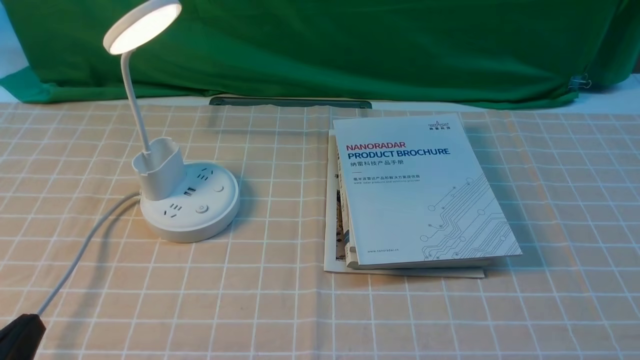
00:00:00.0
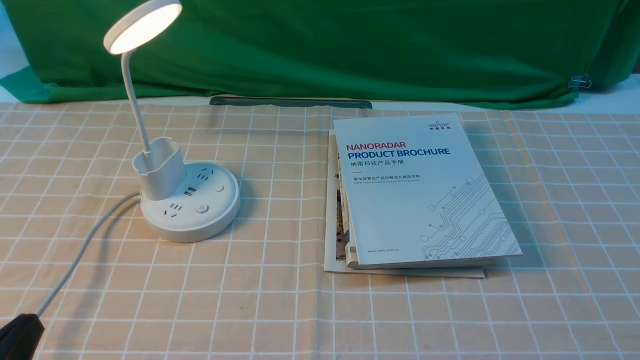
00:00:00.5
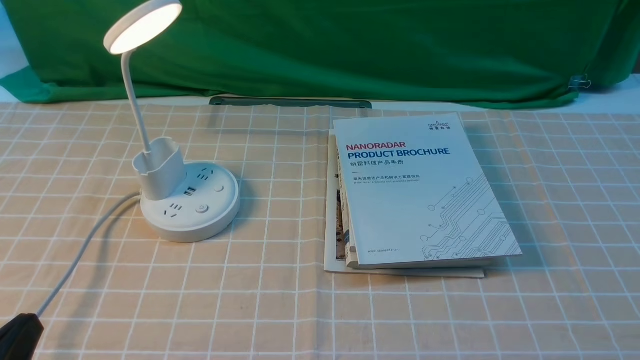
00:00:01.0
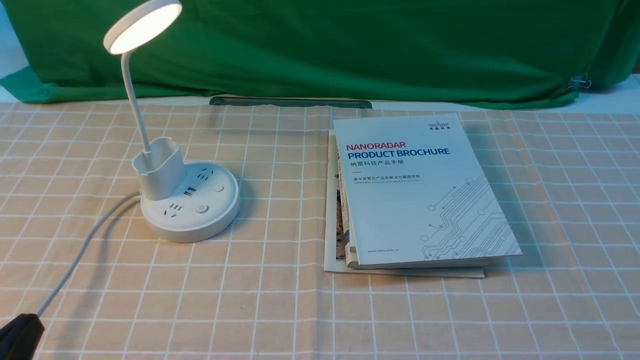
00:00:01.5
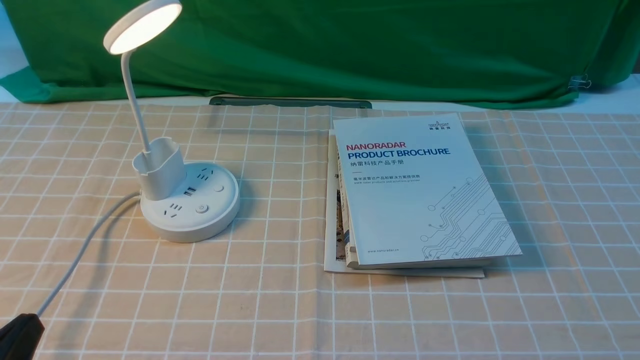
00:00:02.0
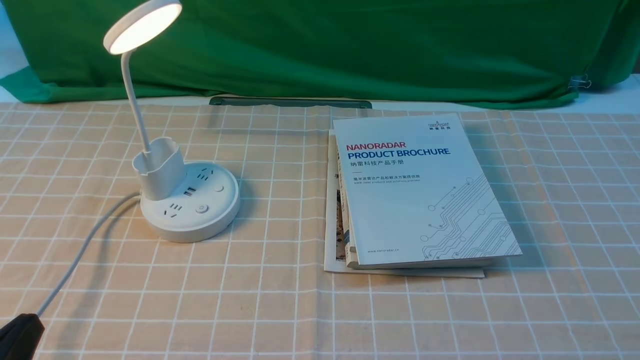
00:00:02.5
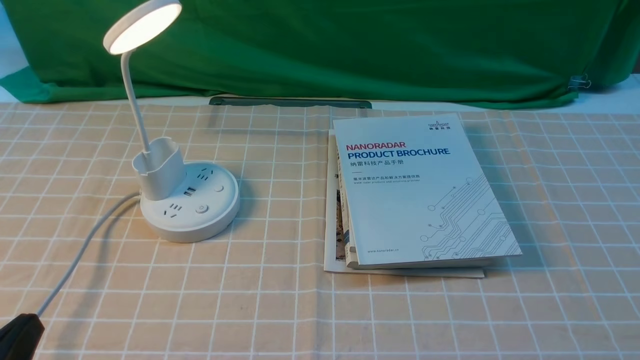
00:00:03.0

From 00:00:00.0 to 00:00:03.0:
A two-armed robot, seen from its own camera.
From 00:00:00.0 to 00:00:03.0: Both grippers stay put.
